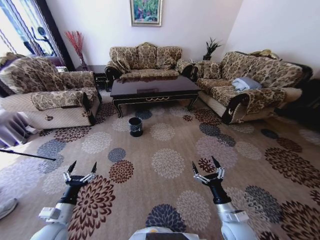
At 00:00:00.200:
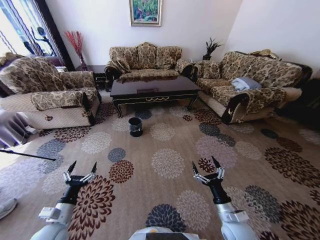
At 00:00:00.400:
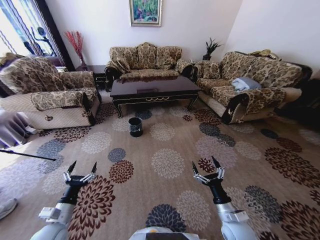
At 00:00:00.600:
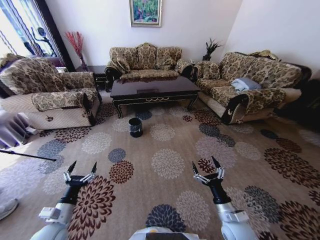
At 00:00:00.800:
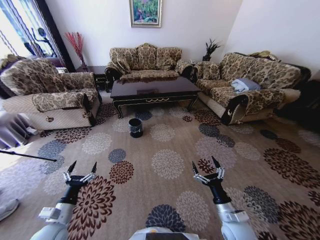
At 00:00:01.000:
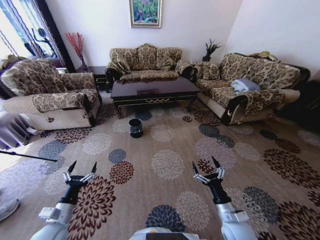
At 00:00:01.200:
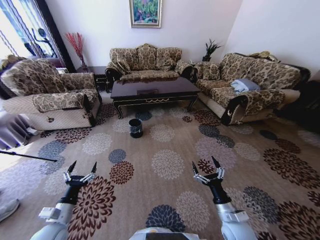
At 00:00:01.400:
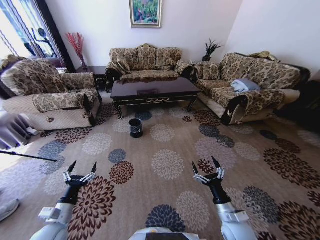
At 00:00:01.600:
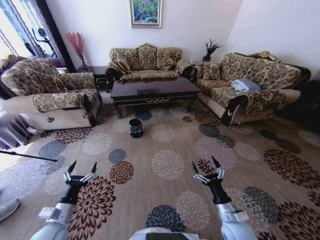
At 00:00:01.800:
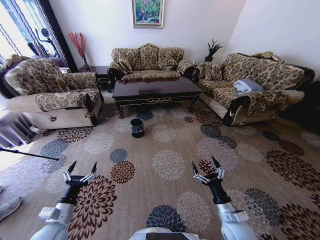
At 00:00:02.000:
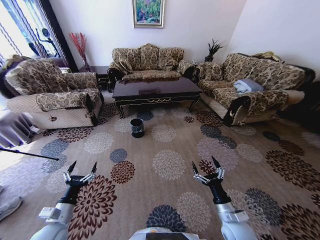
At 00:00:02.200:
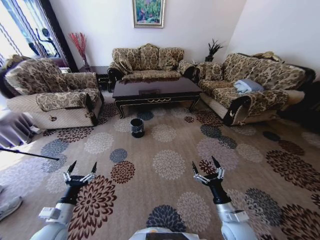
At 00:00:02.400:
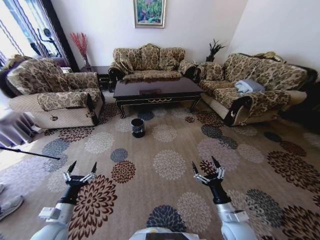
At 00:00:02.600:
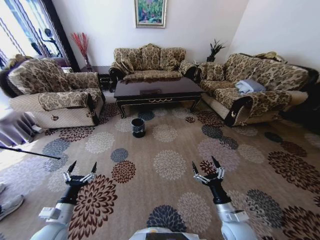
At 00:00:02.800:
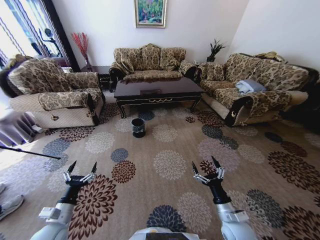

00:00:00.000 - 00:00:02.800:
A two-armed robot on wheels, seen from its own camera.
Task of the whole recording: Move to the front of the table and pick up the trash from the floor, then place it into the trash bin.
00:00:00.000 - 00:00:01.400: Neither gripper changes place.
